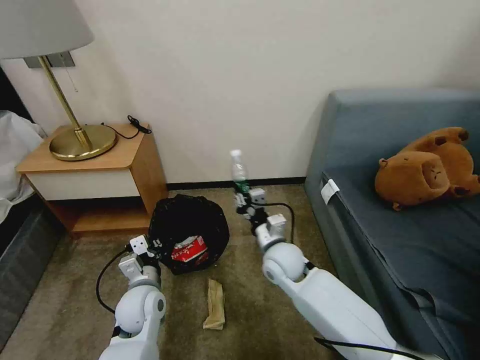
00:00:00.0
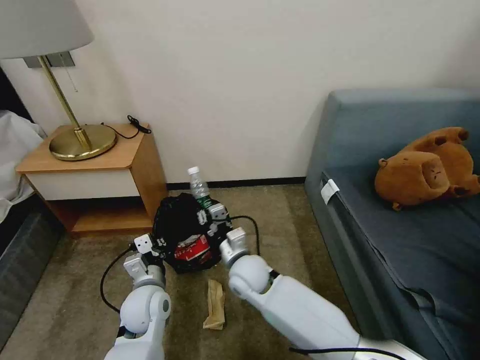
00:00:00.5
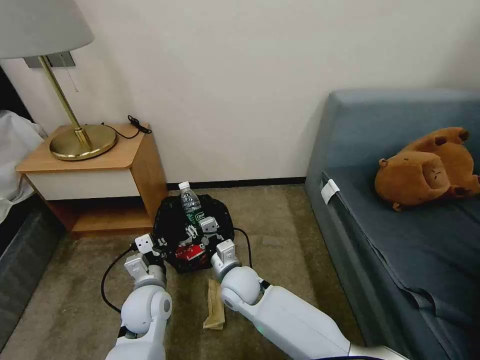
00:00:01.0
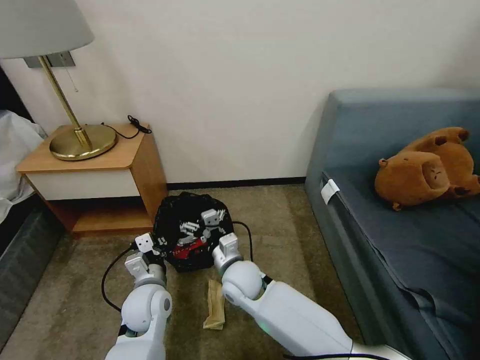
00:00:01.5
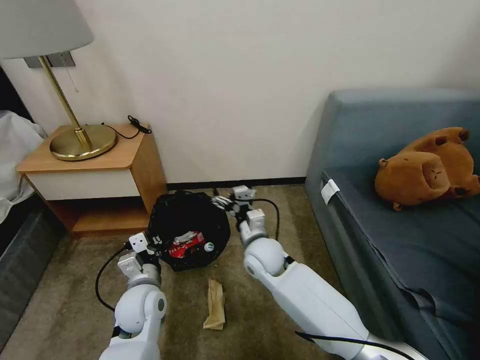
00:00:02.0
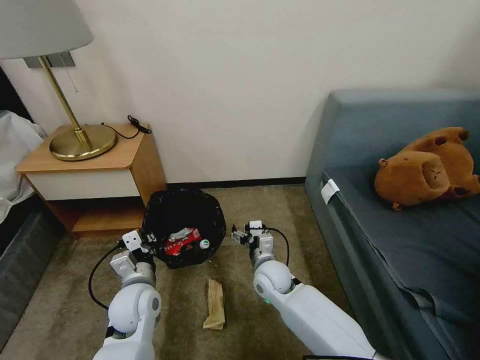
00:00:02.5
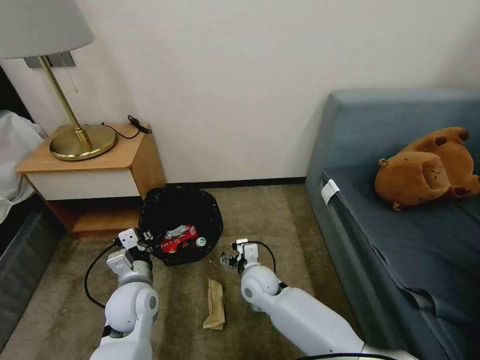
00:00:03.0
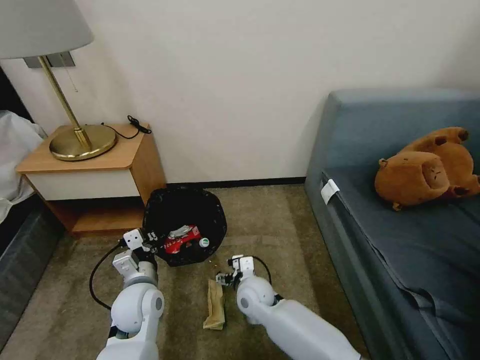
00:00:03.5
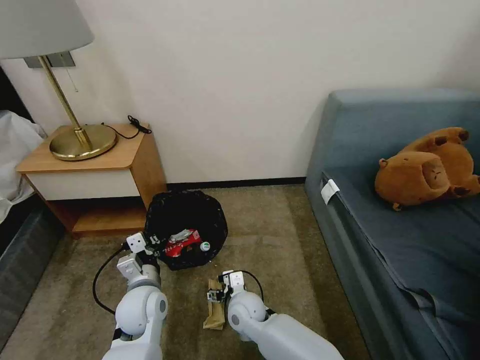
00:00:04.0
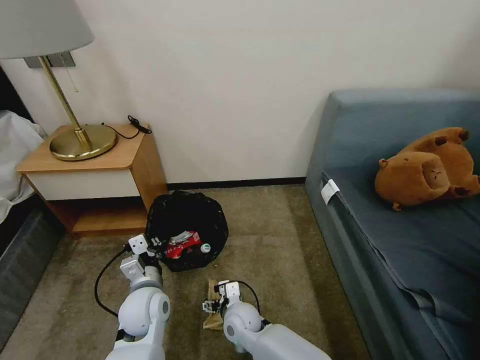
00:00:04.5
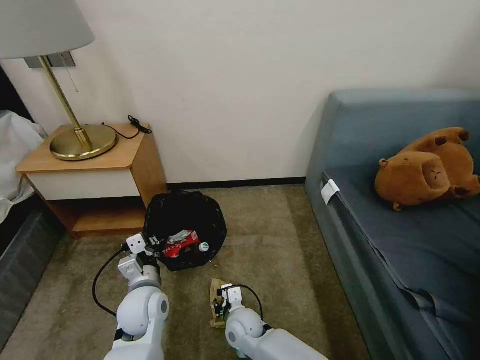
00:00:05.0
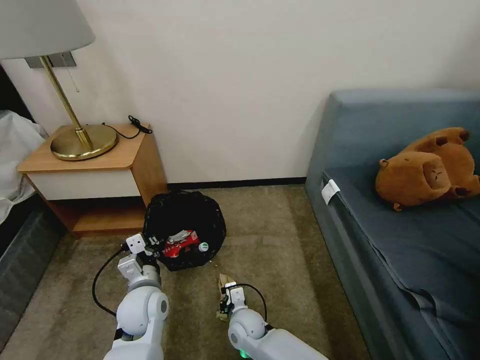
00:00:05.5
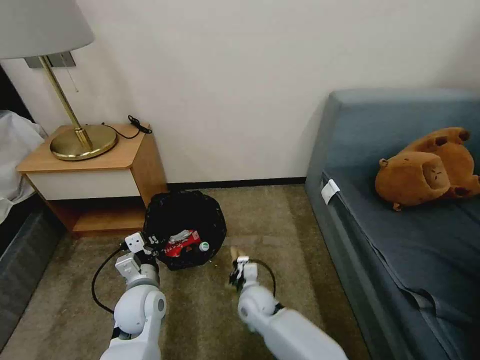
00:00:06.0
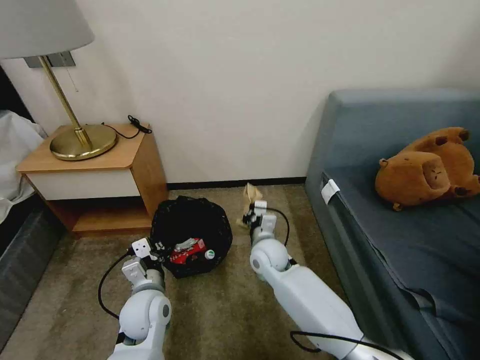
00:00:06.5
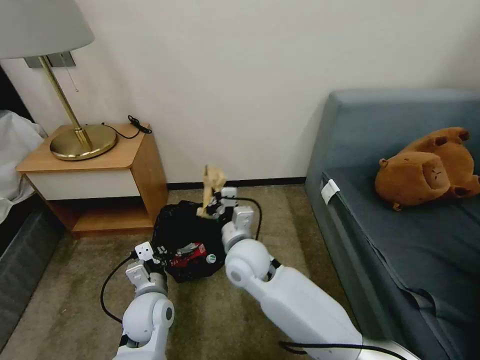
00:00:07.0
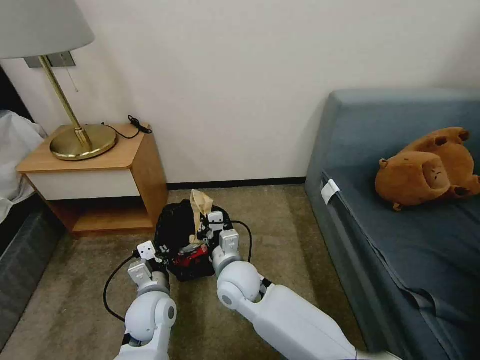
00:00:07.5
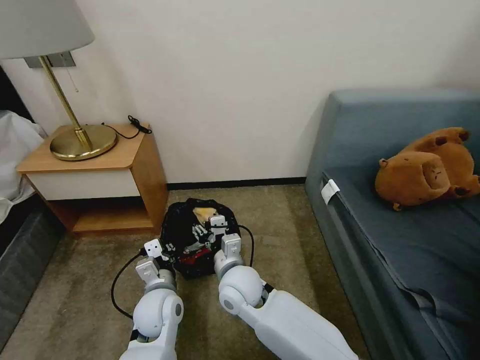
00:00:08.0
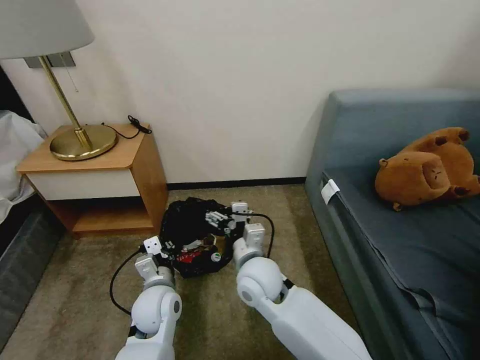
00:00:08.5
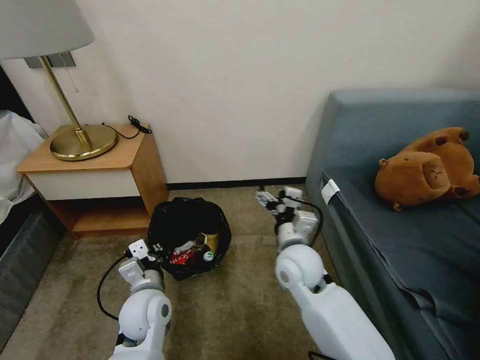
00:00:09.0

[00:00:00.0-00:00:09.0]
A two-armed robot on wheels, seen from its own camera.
Task of the whole recording: Pick up the trash bin, then pick up the garbage on the floor and place it into the trash bin.
00:00:00.0 to 00:00:02.0: The right gripper shifts about 5 cm to the left, and opens up.
00:00:02.0 to 00:00:04.5: The right gripper moves downward and backward, roughly 20 cm.
00:00:04.5 to 00:00:07.0: The right gripper goes approximately 20 cm upward, and closes its fingers.
00:00:07.0 to 00:00:09.0: The right gripper travels to the right by approximately 10 cm, and opens its fingers.

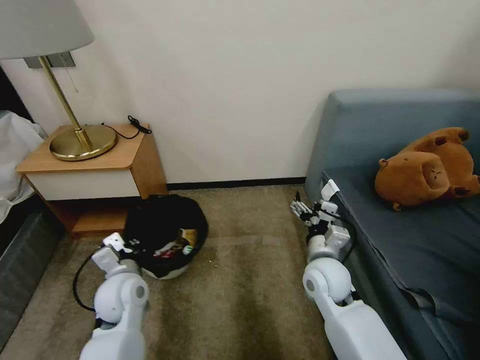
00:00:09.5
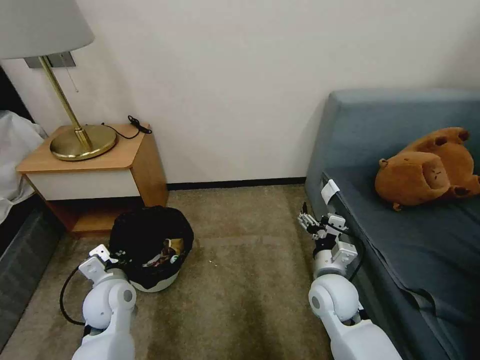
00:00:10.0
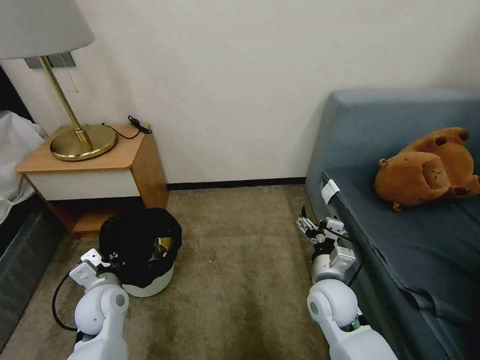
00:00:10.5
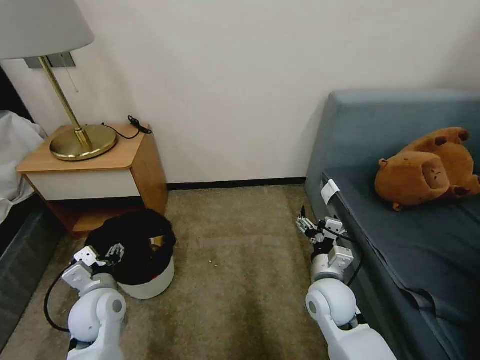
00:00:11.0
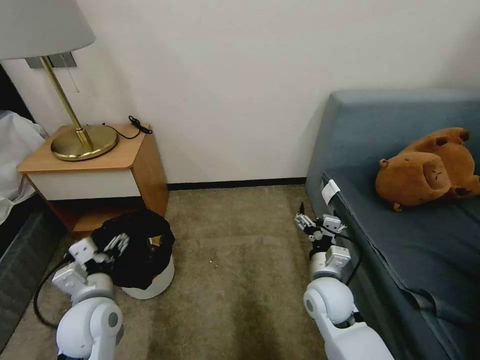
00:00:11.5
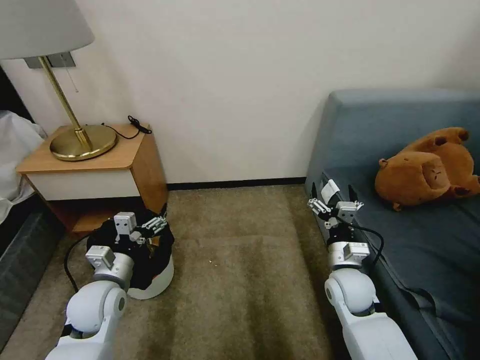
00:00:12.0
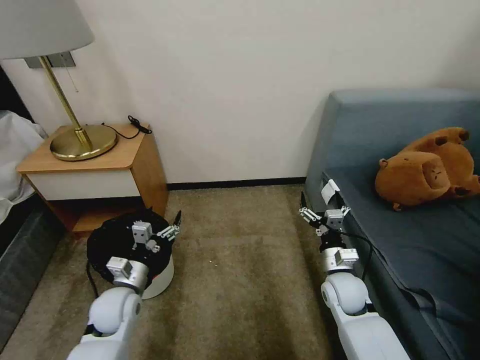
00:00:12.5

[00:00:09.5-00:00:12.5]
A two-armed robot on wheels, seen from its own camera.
Task of the whole recording: Pick up the trash bin, then pick up the garbage on the floor and place it into the trash bin.
00:00:09.5 to 00:00:11.0: The left gripper changes place by roughly 5 cm, and opens.
00:00:11.0 to 00:00:12.5: The left gripper moves downward, some 5 cm. The right gripper shifts approximately 10 cm to the right and downward.

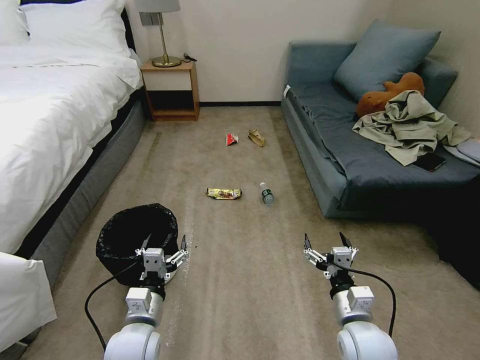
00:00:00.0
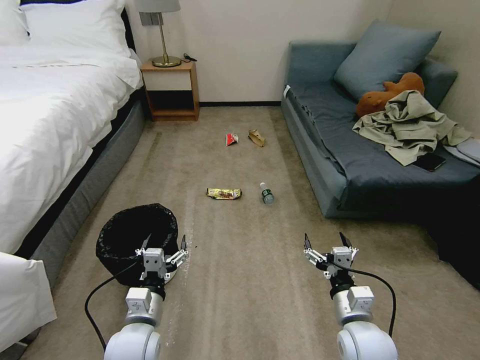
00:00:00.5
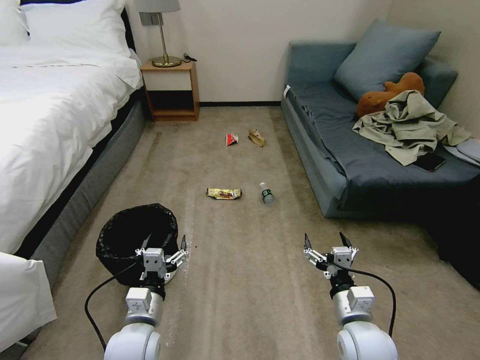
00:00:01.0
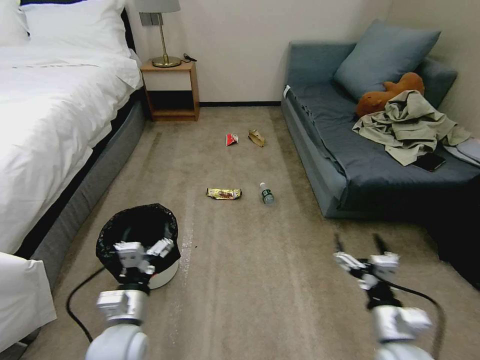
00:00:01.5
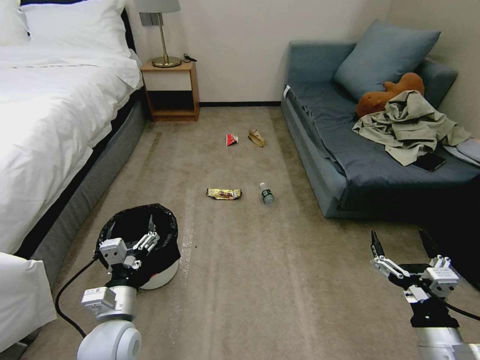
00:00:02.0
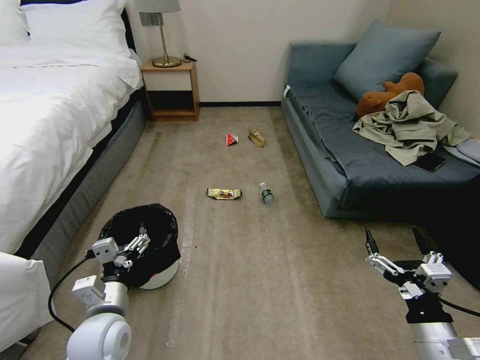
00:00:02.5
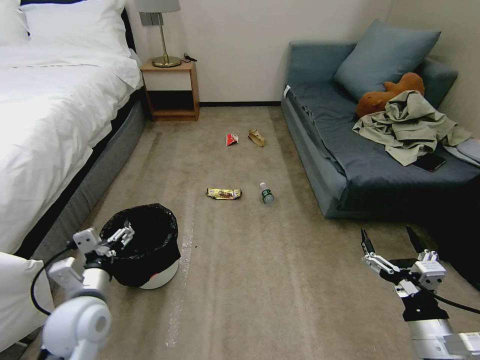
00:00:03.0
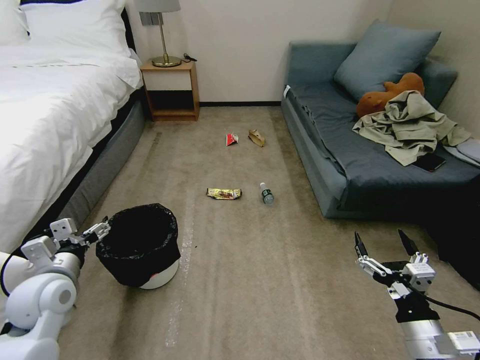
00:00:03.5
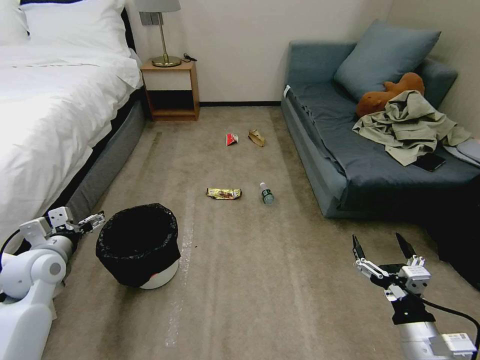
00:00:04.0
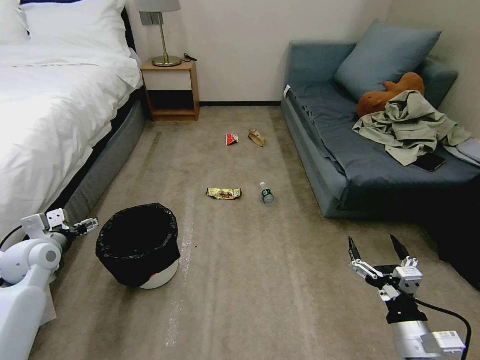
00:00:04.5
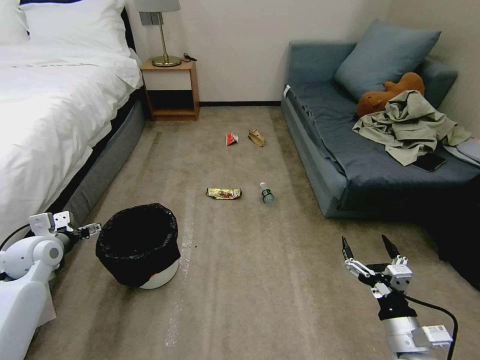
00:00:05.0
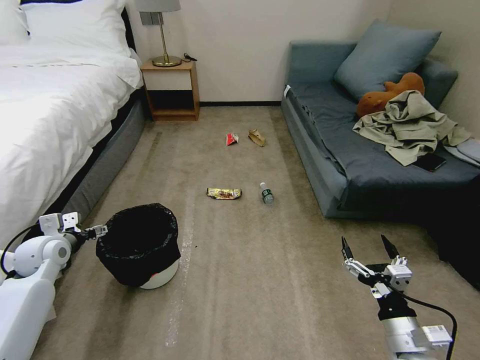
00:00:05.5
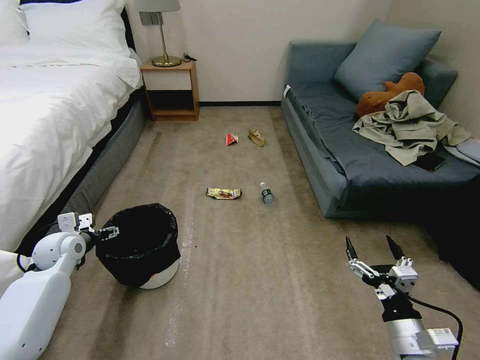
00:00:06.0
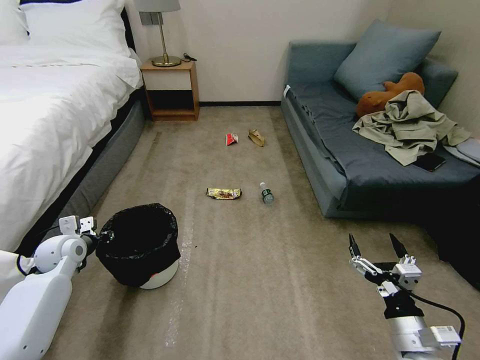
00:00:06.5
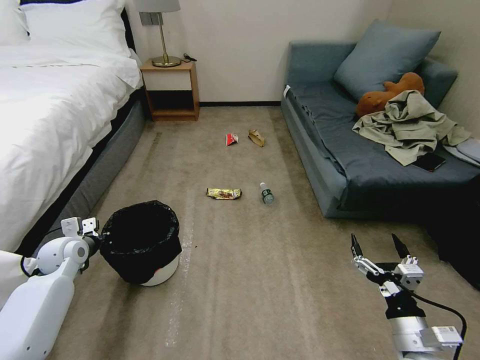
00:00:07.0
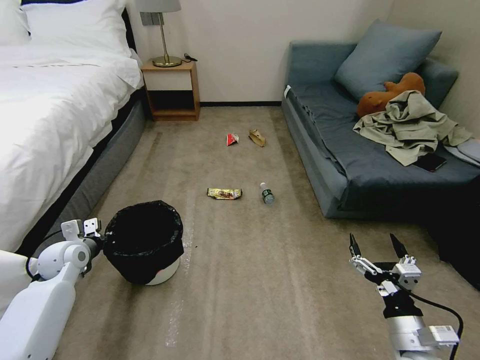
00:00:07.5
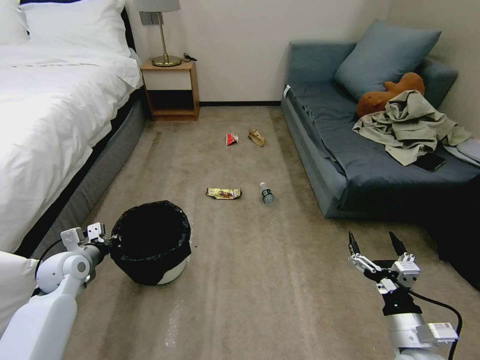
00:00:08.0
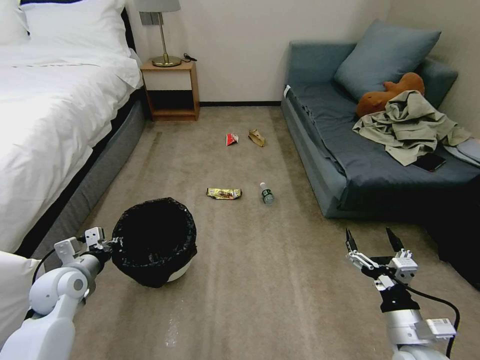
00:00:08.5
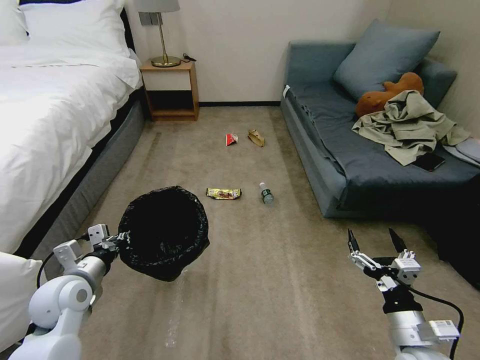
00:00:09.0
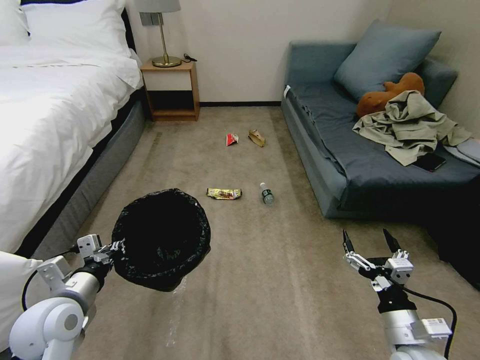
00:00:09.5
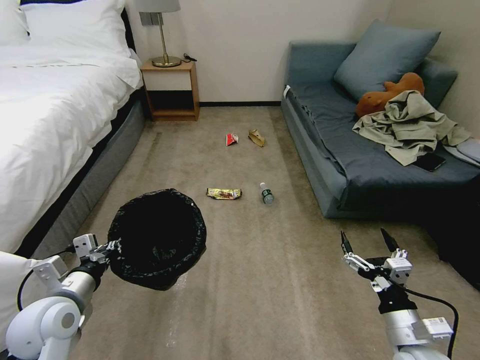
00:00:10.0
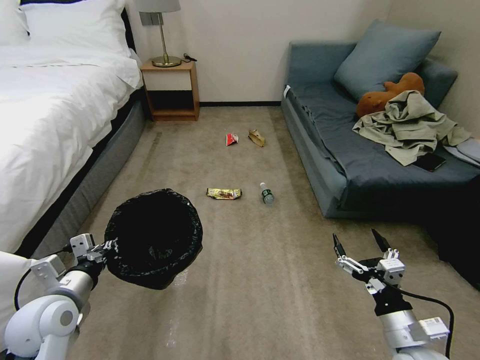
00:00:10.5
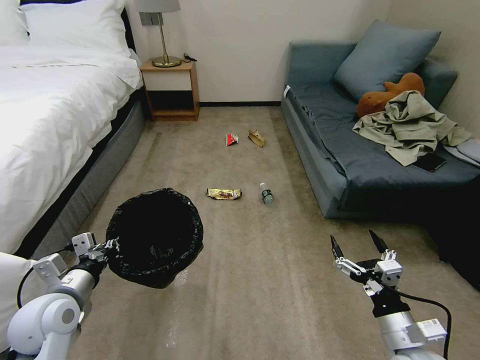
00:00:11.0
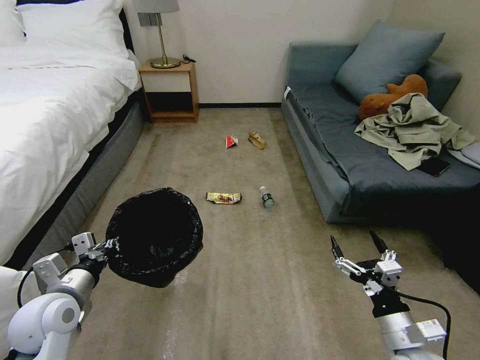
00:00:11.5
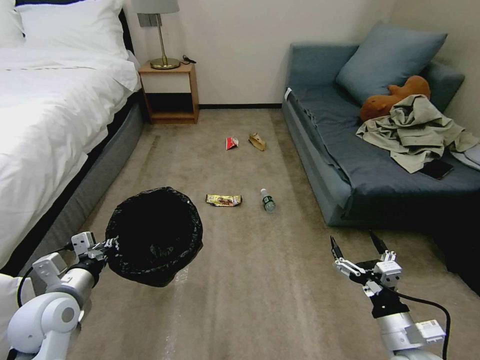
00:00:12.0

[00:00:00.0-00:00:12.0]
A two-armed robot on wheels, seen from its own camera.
Task of the whole recording: Pick up the trash bin, then pick up the garbage on the floor and place it into the trash bin.
00:00:02.0 to 00:00:04.0: The left gripper is displaced to the left and forward by approximately 20 cm.
00:00:04.0 to 00:00:06.0: The left gripper travels forward and downward by roughly 10 cm.
00:00:06.0 to 00:00:08.0: The left gripper changes place by some 5 cm, and closes its fingers.
00:00:08.0 to 00:00:10.0: The left gripper travels backward, to the right and upward by some 15 cm.
00:00:10.0 to 00:00:12.0: Neither gripper changes place.

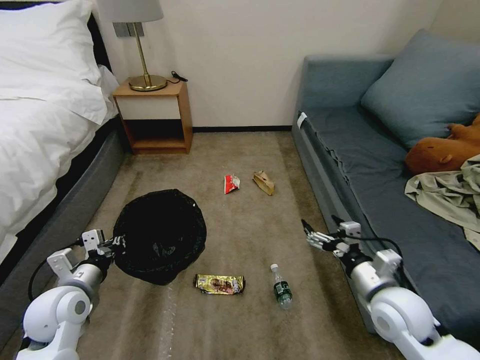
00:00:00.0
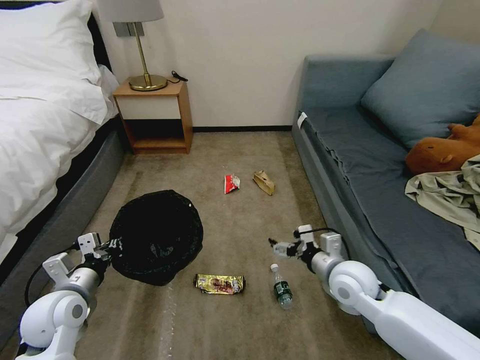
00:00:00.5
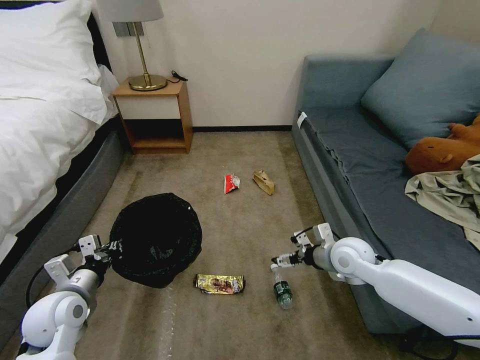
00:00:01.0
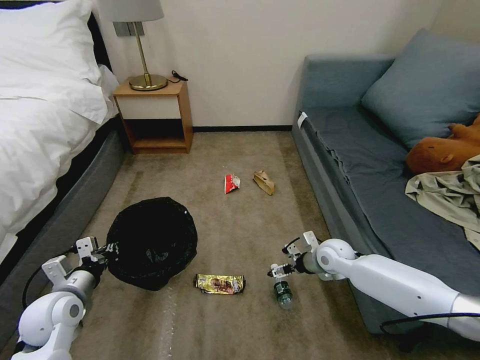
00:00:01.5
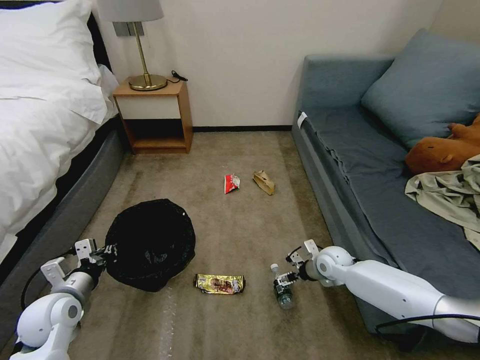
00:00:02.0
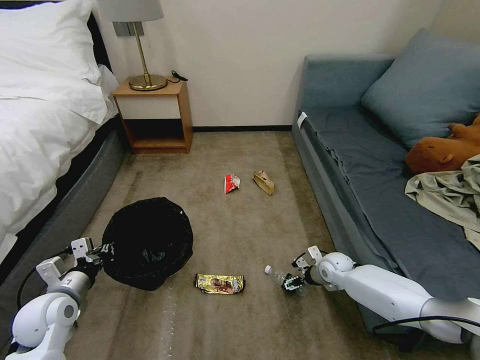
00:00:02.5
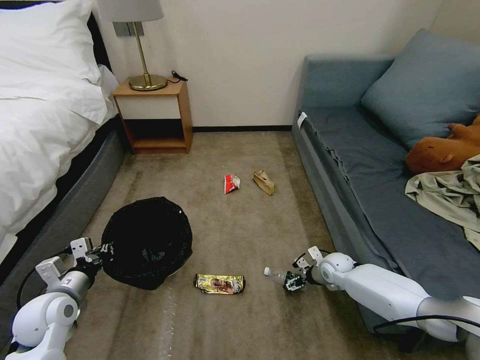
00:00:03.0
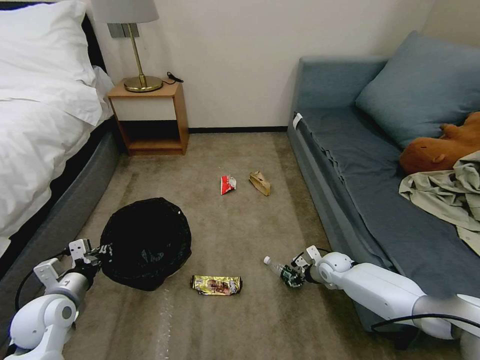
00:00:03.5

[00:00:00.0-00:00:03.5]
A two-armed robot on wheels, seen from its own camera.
Task of the whole recording: Pick up the trash bin, then pick up the garbage on the floor and place it into the trash bin.
00:00:00.0 to 00:00:02.0: The left gripper ends up roughly 5 cm from where it was. The right gripper goes roughly 25 cm forward and downward.
00:00:02.0 to 00:00:03.5: The right gripper travels downward by roughly 5 cm, and closes up.
